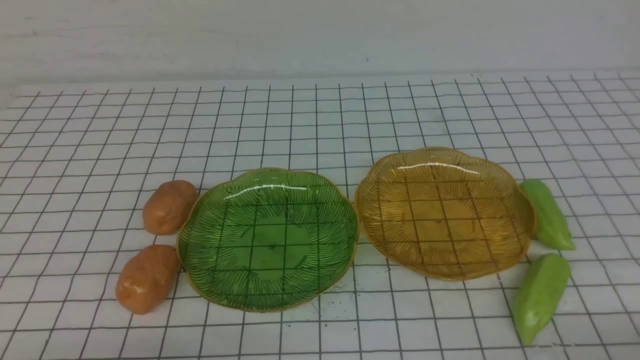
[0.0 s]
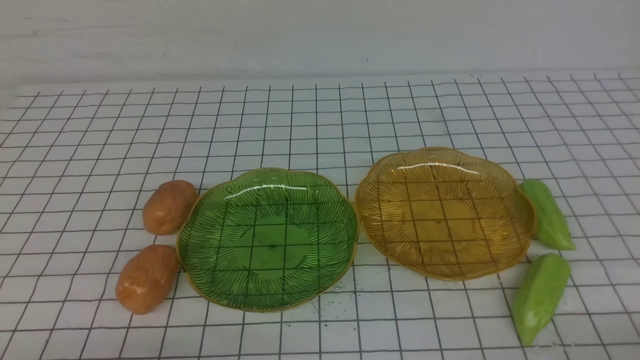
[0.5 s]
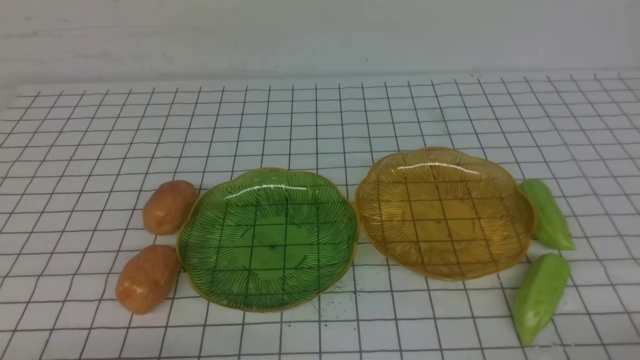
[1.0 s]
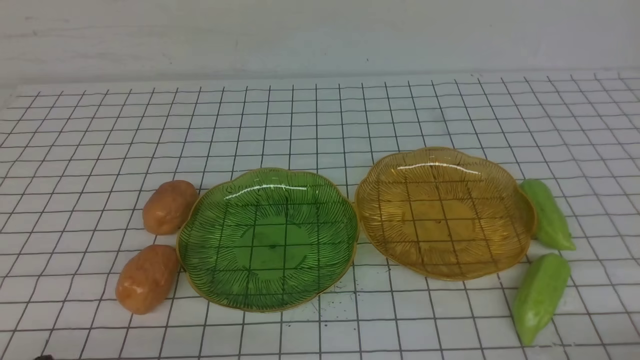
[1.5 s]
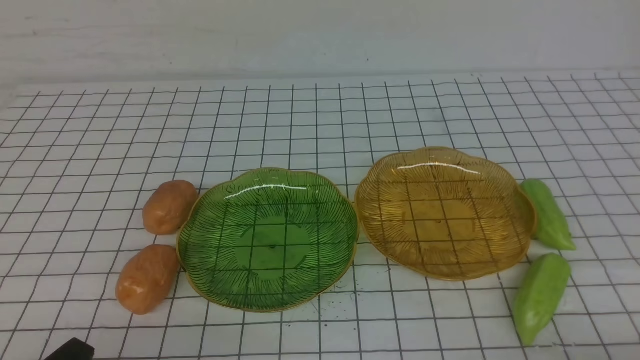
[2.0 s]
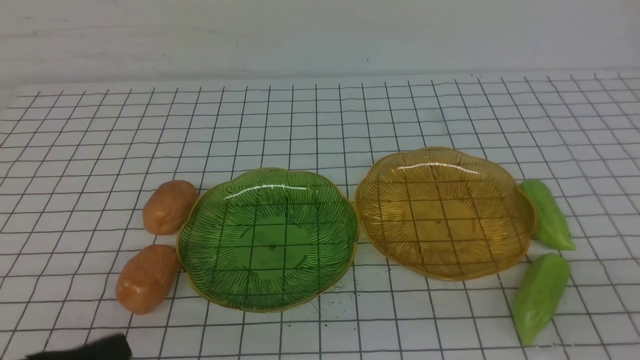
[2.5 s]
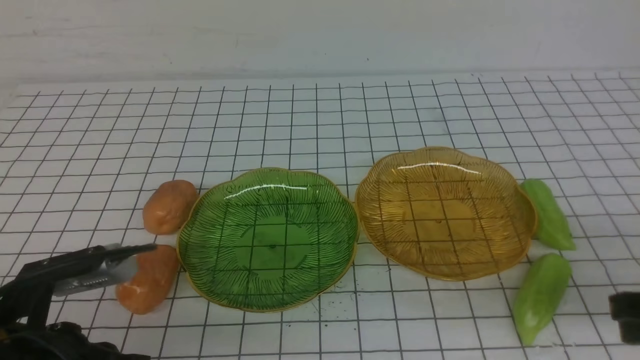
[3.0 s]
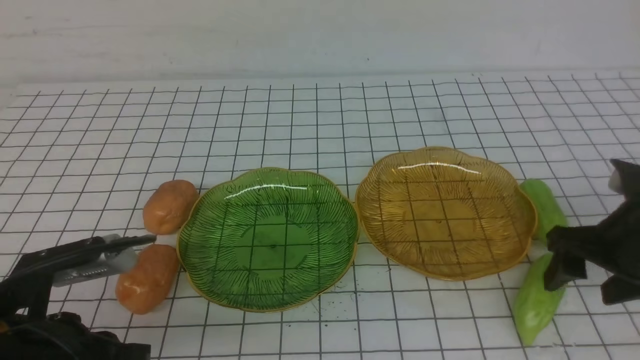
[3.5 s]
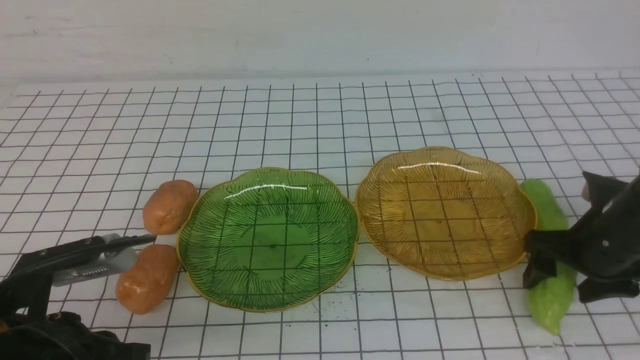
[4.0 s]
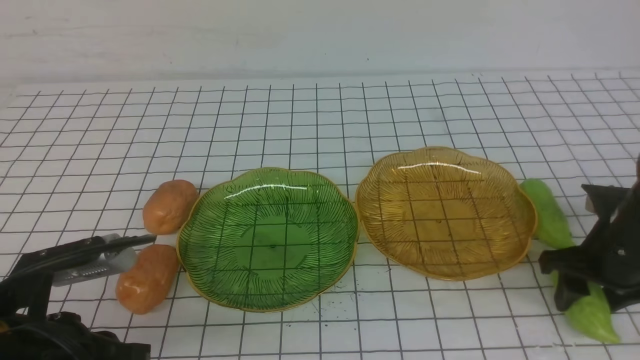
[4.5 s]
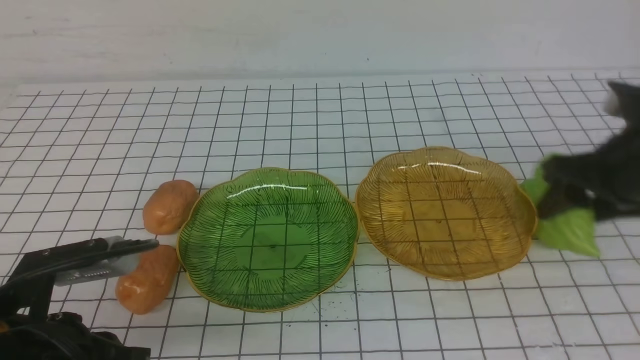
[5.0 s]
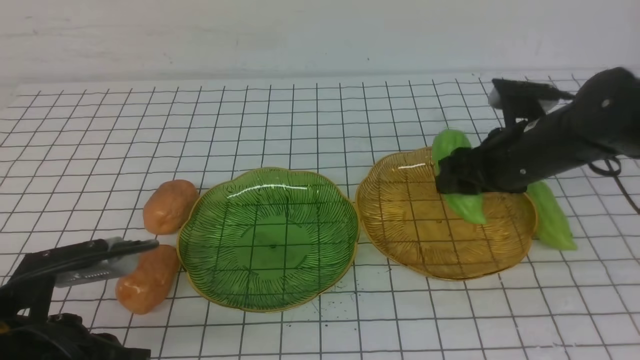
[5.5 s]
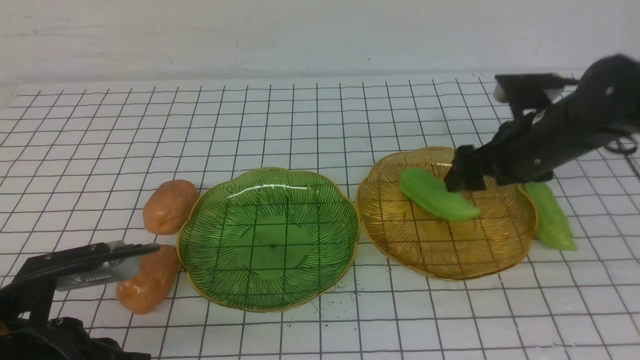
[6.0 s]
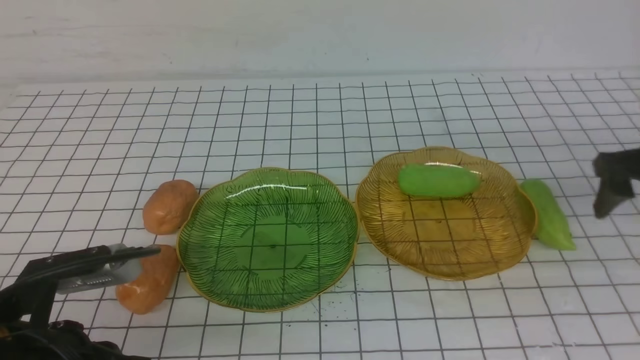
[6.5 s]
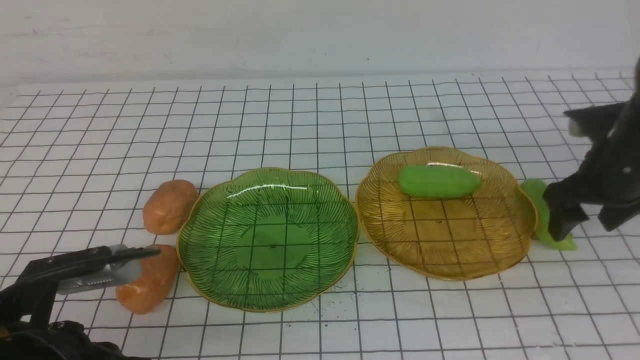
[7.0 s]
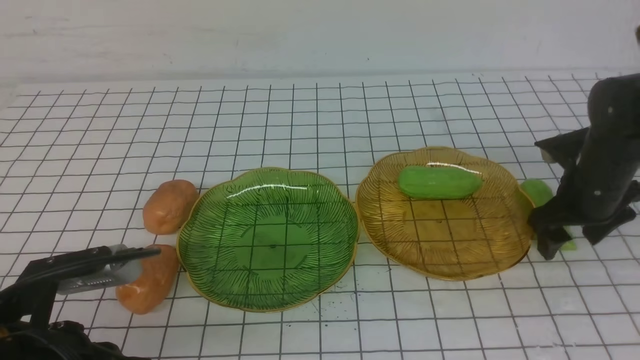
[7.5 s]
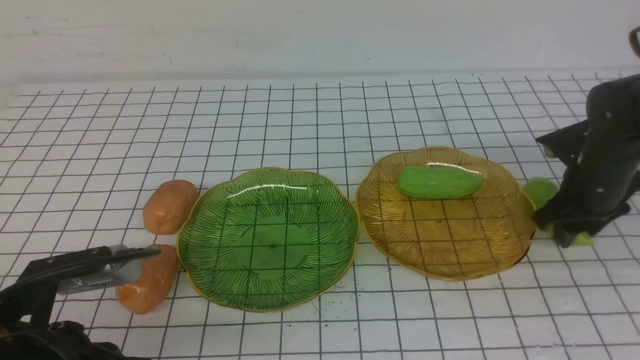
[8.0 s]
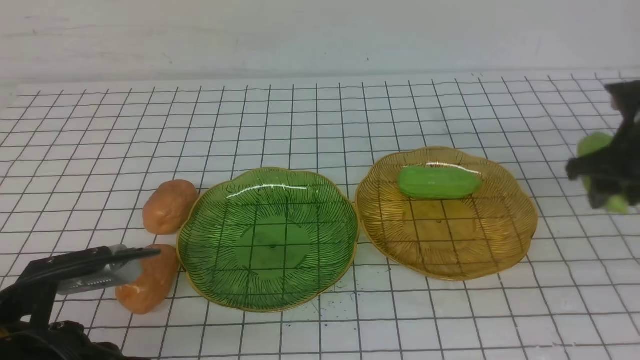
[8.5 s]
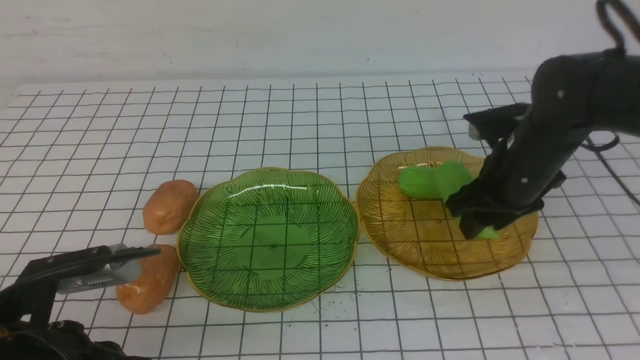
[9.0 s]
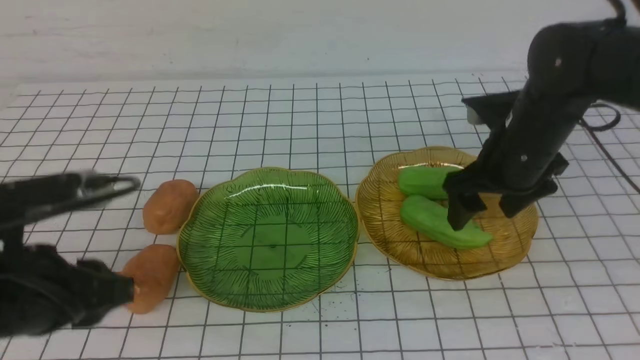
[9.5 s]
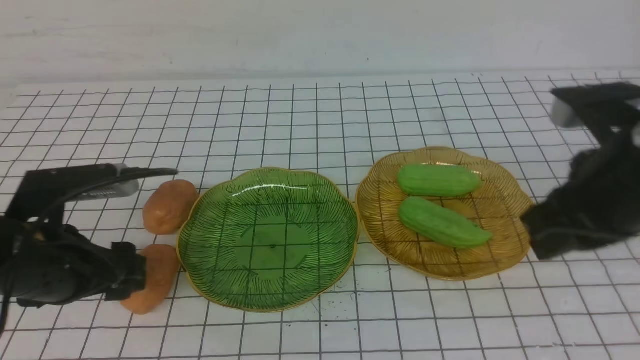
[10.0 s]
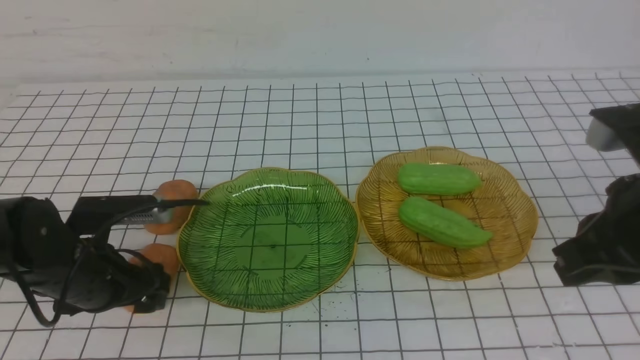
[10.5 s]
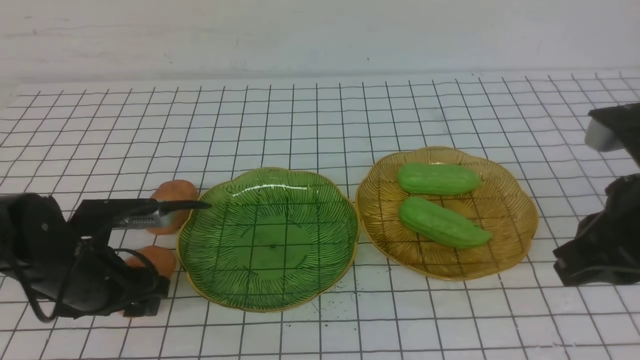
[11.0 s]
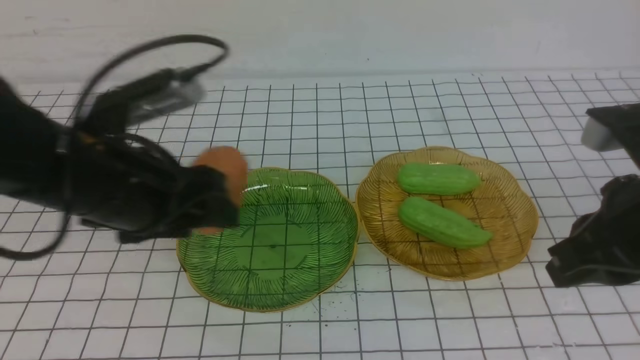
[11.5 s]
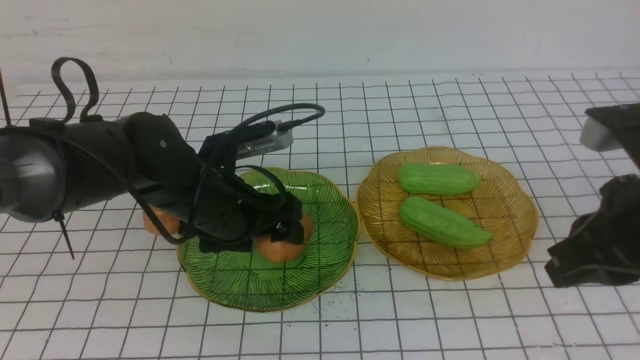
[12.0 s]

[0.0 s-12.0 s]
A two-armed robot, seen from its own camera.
Step, 0.0 to 9.5 s: use the right arm to grab a chayote and put it into the right plate.
2.0 to 4.0 s: The right gripper goes about 25 cm forward, and opens. Meanwhile the left gripper goes some 10 cm forward.
4.0 to 6.0 s: The right gripper goes roughly 10 cm forward, upward and to the left.
6.0 to 8.0 s: The right gripper shifts some 10 cm to the right and downward, and closes.
8.0 to 10.0 s: The right gripper heads backward, upward and to the left, covering approximately 20 cm, and closes; the left gripper heads forward, covering some 10 cm, and opens.
10.0 to 12.0 s: The left gripper travels to the right and forward by some 15 cm.

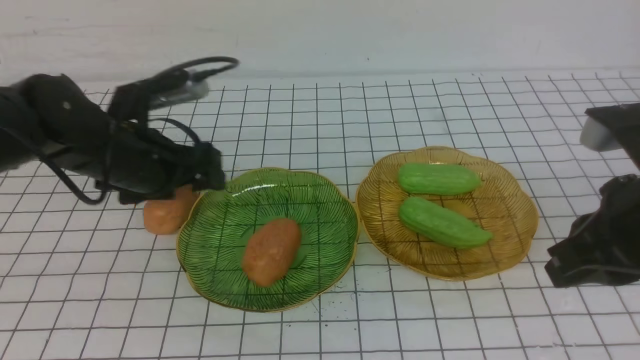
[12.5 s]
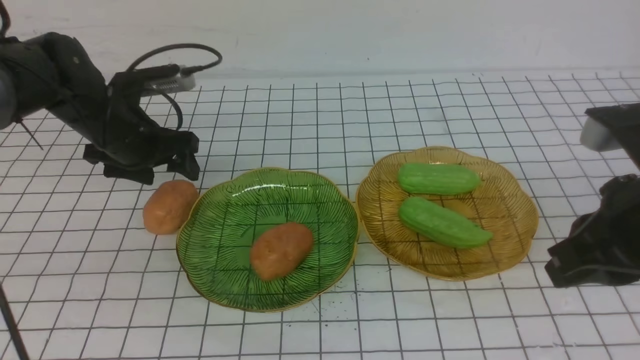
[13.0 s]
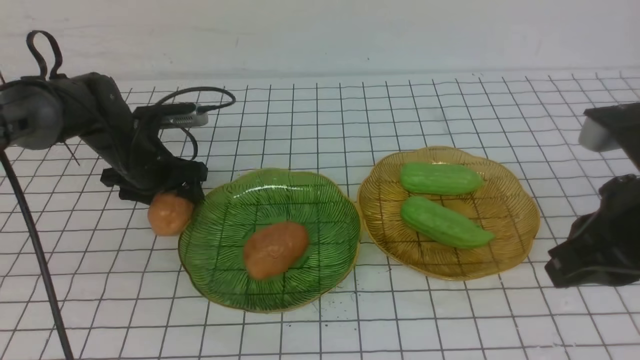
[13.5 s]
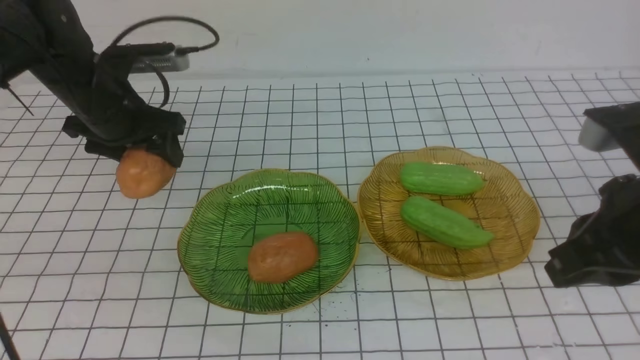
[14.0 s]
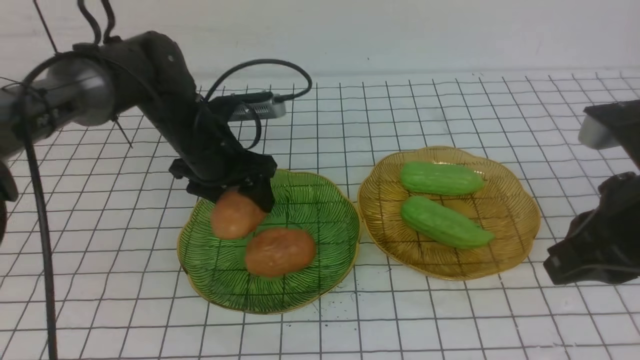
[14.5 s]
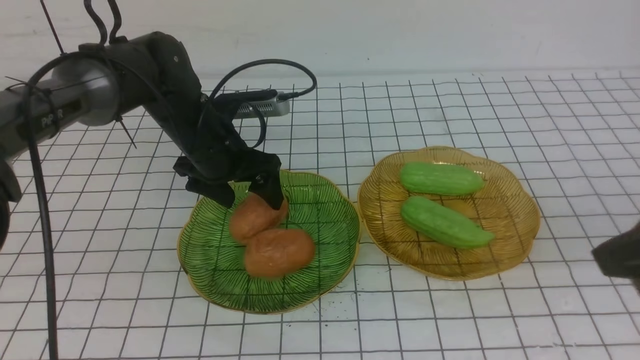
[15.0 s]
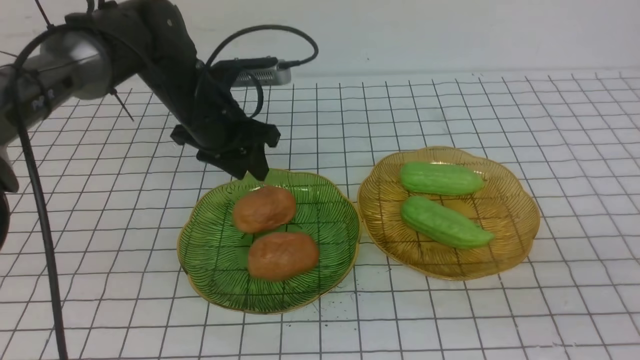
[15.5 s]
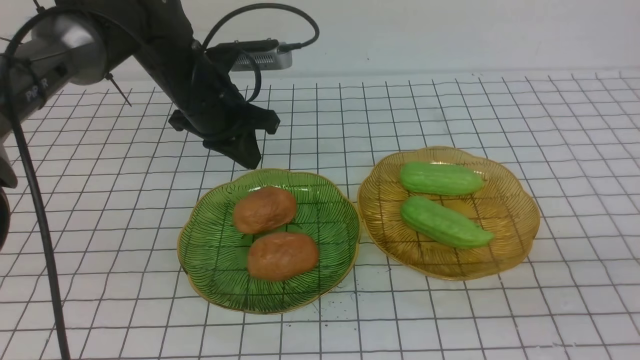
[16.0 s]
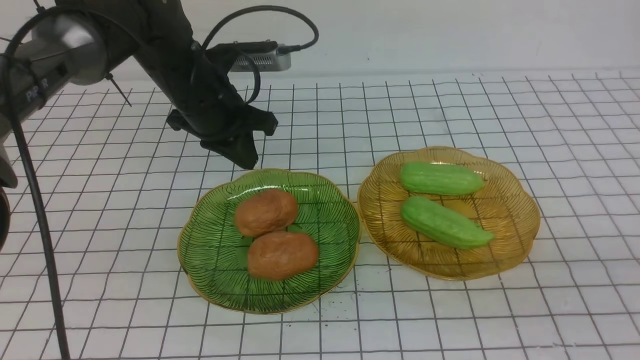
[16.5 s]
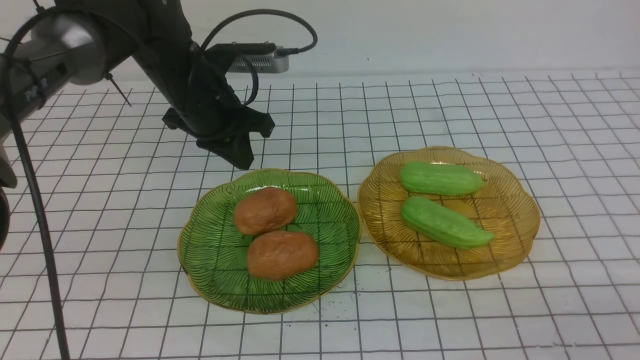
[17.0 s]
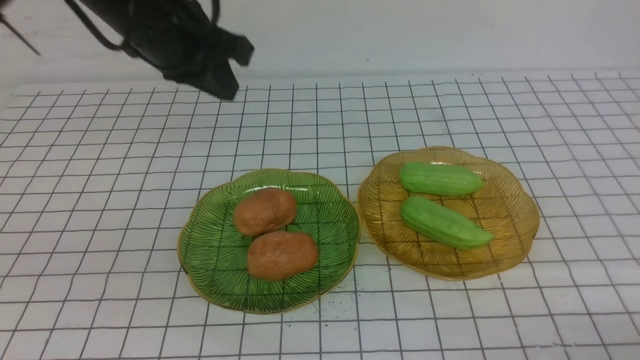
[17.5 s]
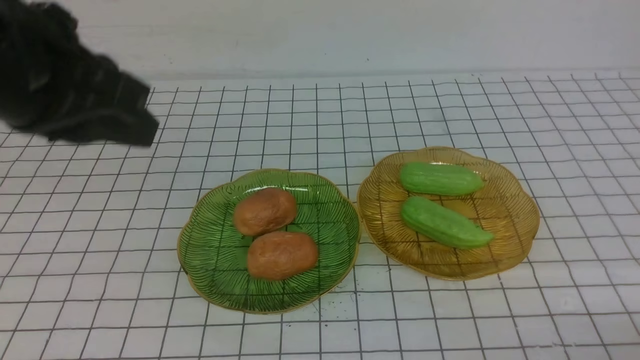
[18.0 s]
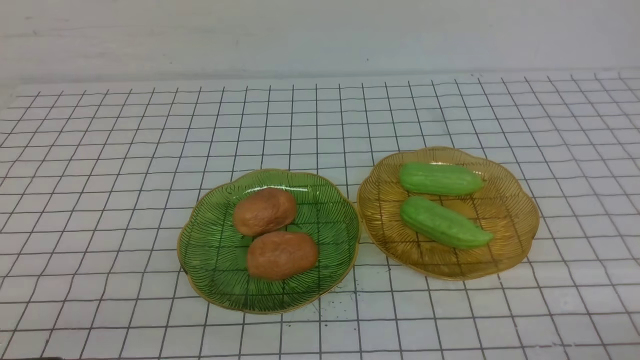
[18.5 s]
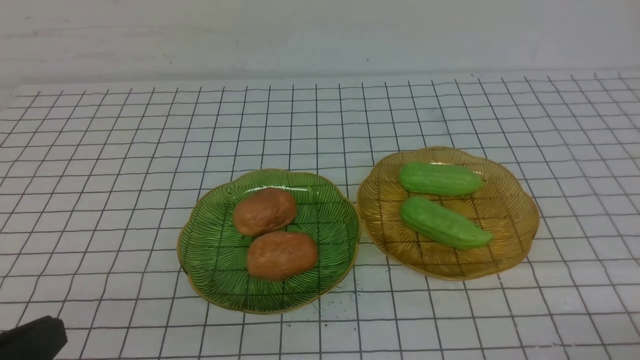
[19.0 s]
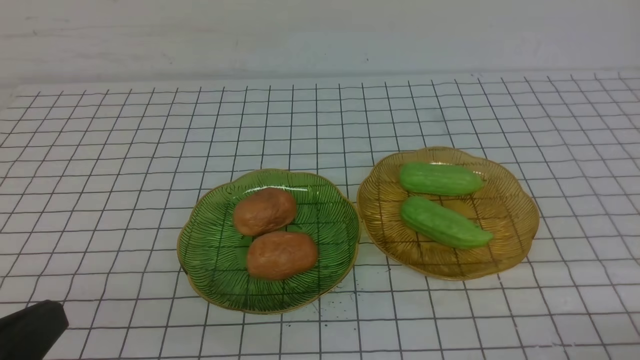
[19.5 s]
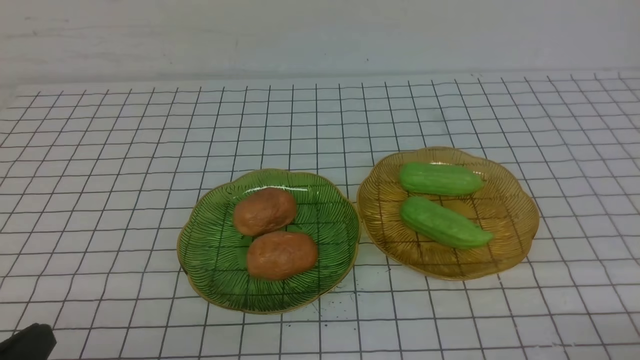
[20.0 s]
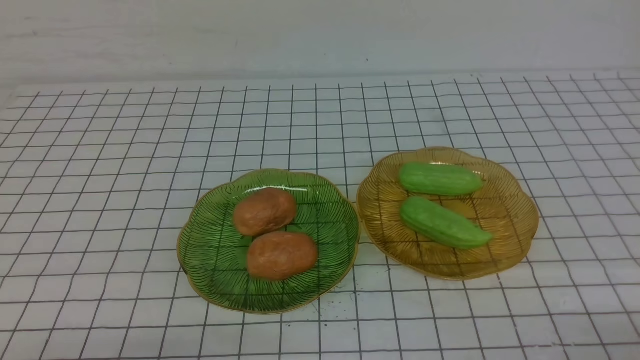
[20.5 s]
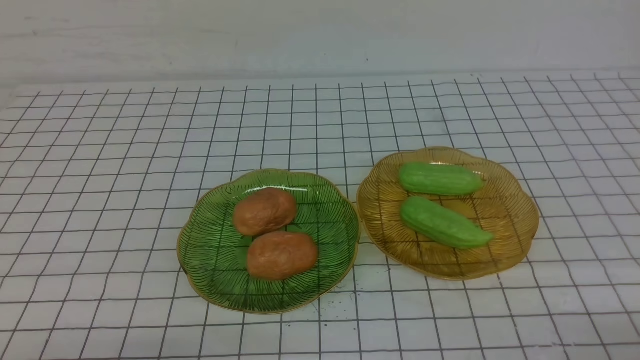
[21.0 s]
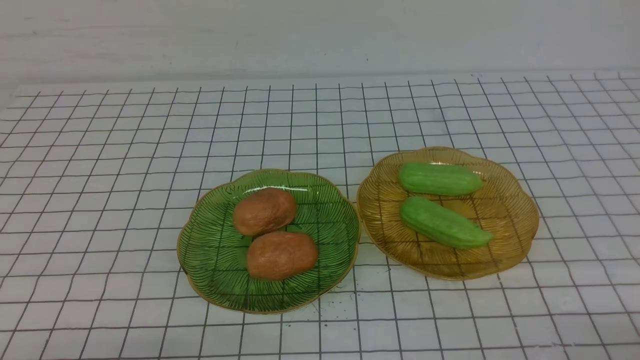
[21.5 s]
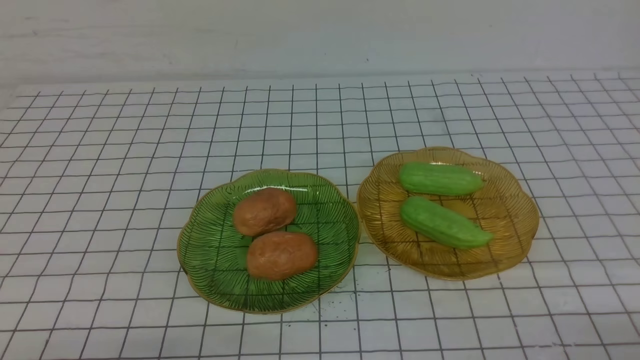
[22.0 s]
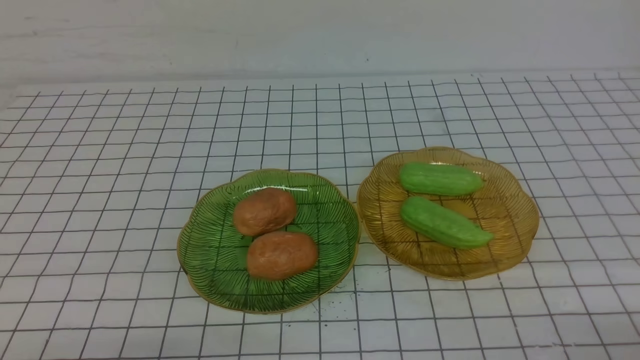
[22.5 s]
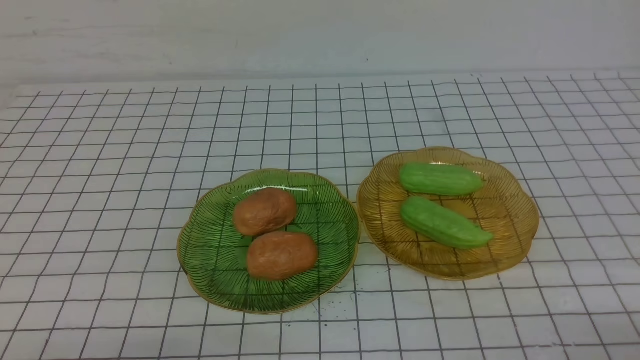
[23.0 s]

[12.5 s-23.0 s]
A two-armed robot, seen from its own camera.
Step, 12.5 to 15.0 s: Grab a potato with your left arm and put it on the left plate.
12.5 to 14.5 s: The left gripper shifts roughly 5 cm forward.
14.5 to 16.5 s: The right gripper shifts some 15 cm backward and to the right. Meanwhile the left gripper moves roughly 5 cm, and closes its fingers.
16.5 to 19.0 s: The right gripper is displaced downward by some 10 cm, while the left gripper moves backward, roughly 40 cm.
19.0 to 21.0 s: The left gripper travels downward by some 10 cm.
21.0 to 23.0 s: The two grippers keep their place.
